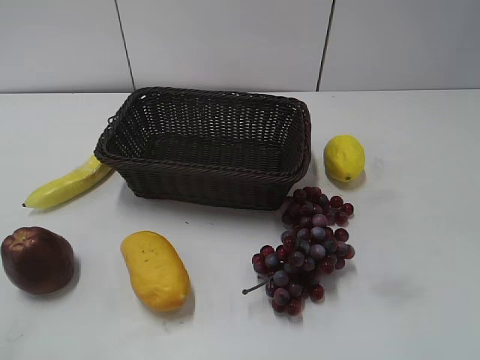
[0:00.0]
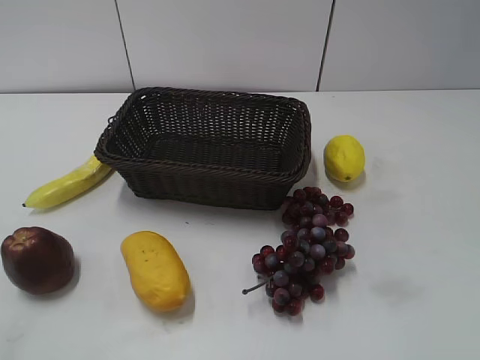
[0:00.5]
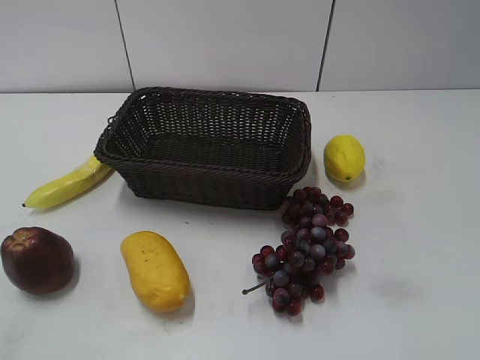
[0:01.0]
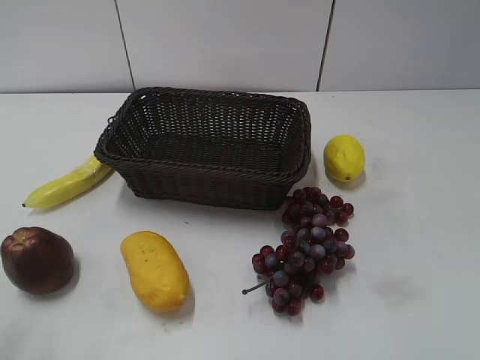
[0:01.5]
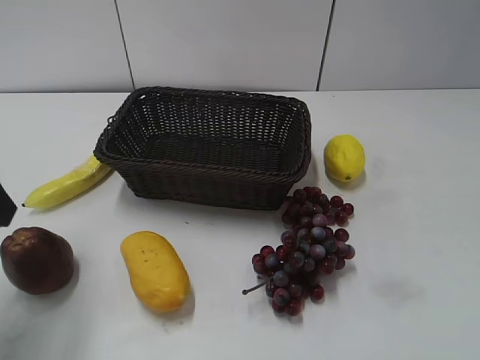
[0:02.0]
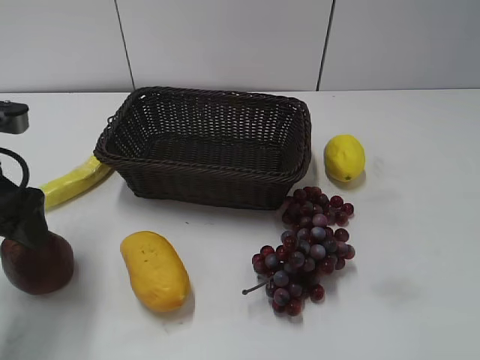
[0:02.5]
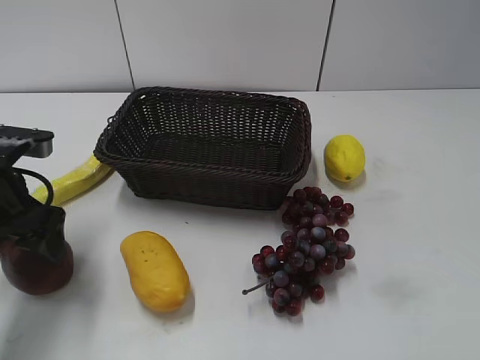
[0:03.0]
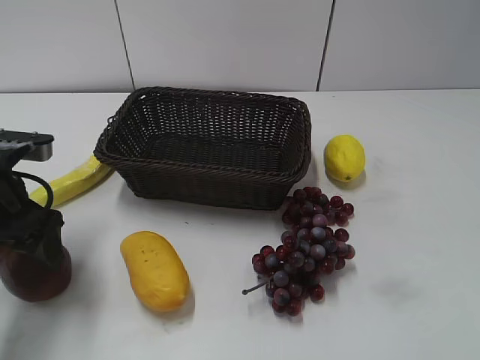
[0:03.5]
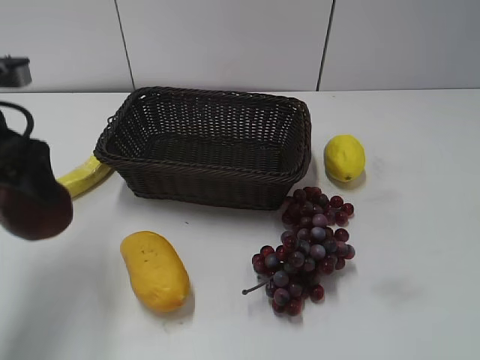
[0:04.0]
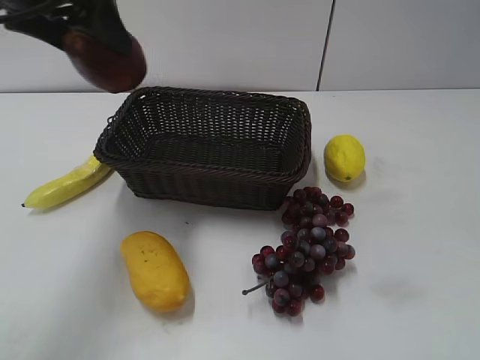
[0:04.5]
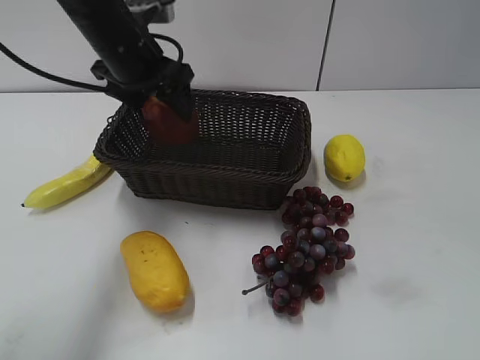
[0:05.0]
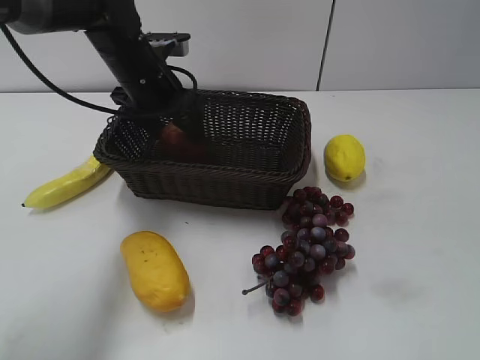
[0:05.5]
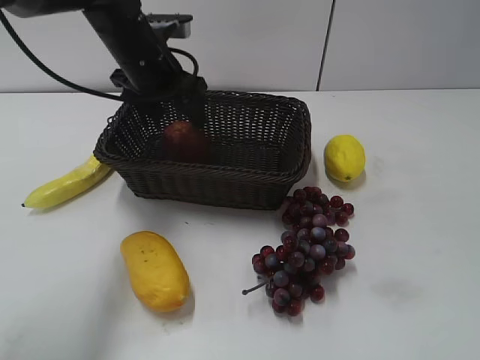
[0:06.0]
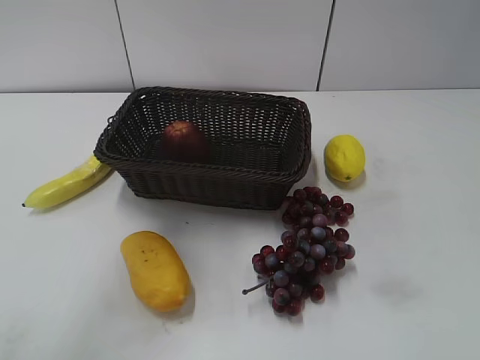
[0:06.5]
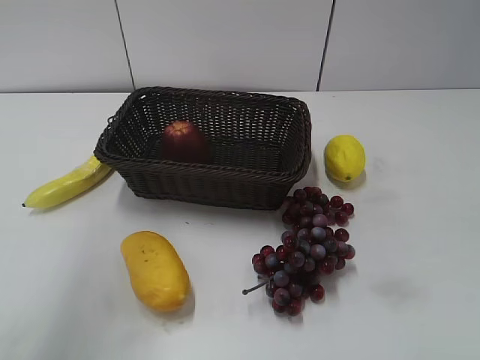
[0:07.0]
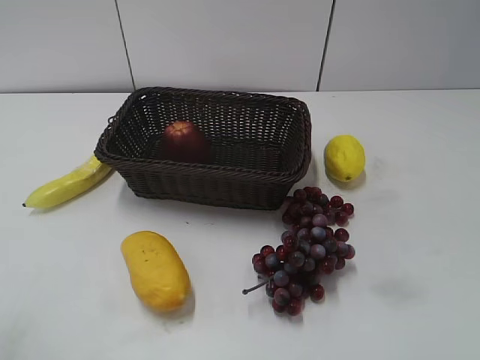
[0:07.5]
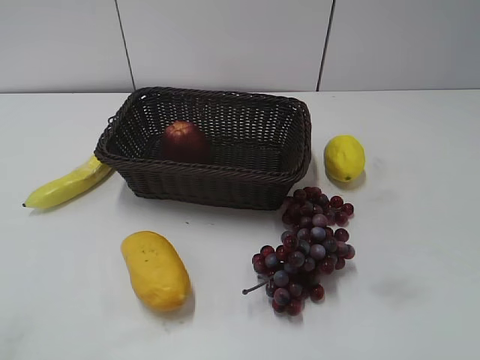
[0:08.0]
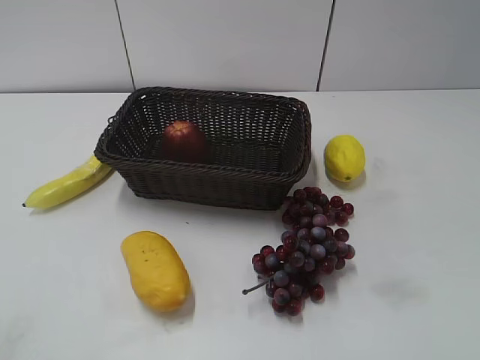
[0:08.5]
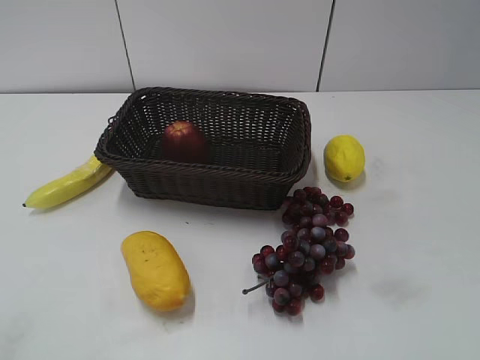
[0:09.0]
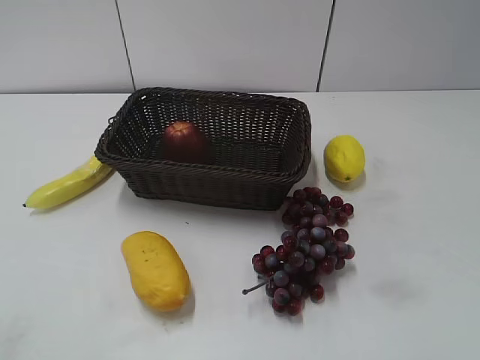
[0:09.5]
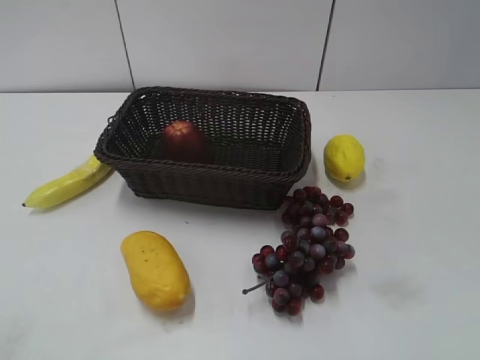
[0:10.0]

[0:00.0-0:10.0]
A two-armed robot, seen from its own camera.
Step, 0:02.0 to 0:03.0: Grasp the apple with left gripper.
Step, 0:03.5 to 0:05.5: Place the apple in the basket with left gripper.
0:02.0 to 0:04.0: The left gripper shifts some 5 cm forward, and reaches about 10 cm downward, then returns.
0:04.0 to 0:06.0: The left gripper moves forward and to the right, about 20 cm.
0:06.0 to 0:08.0: The left gripper travels backward and to the left by some 50 cm.
